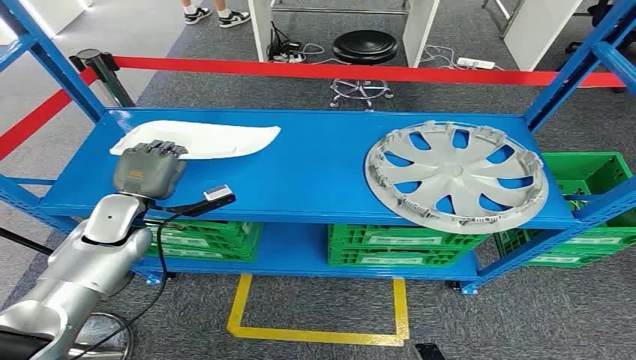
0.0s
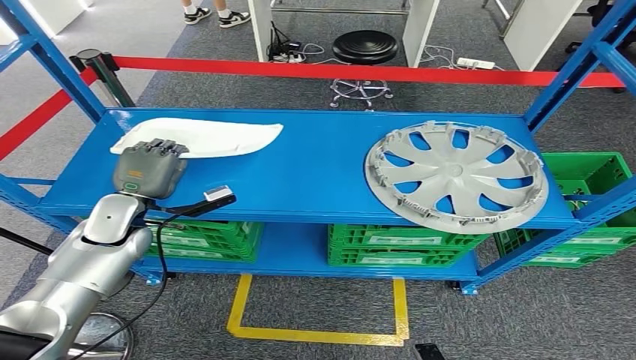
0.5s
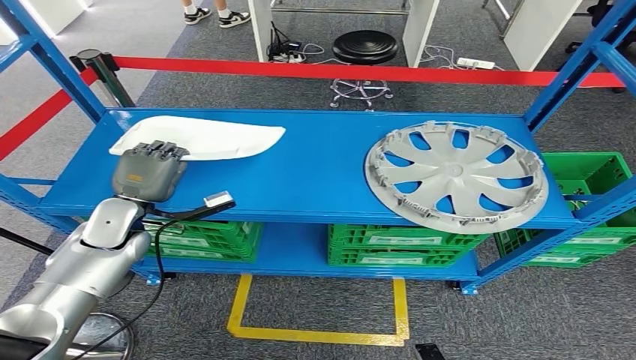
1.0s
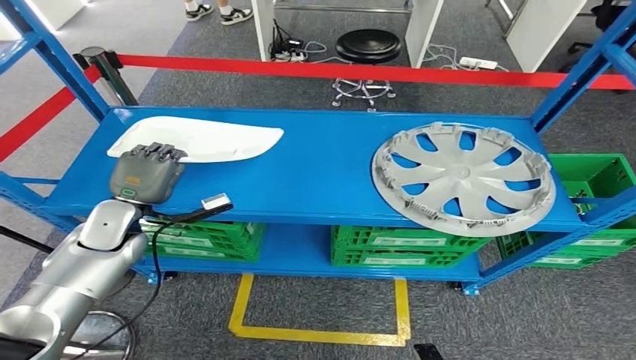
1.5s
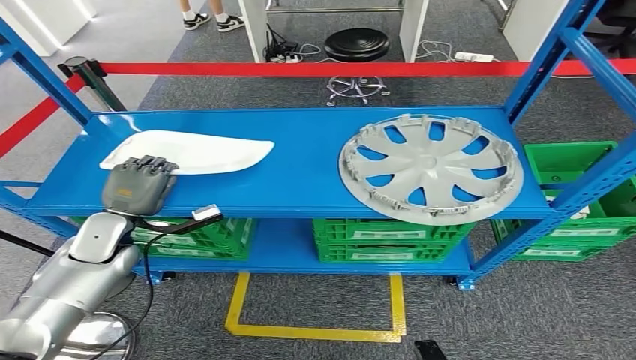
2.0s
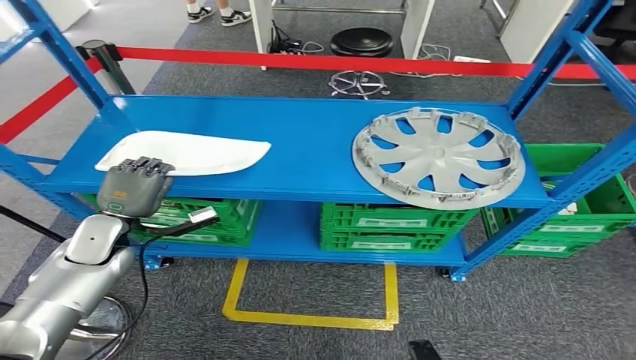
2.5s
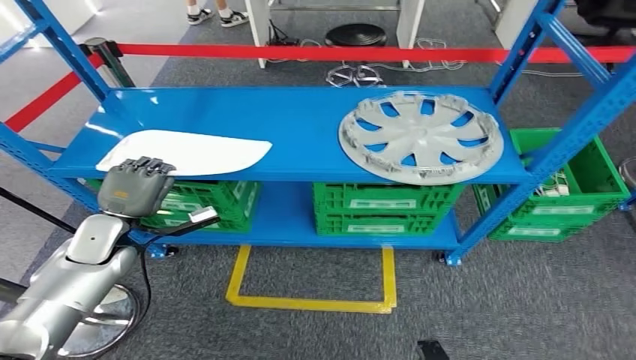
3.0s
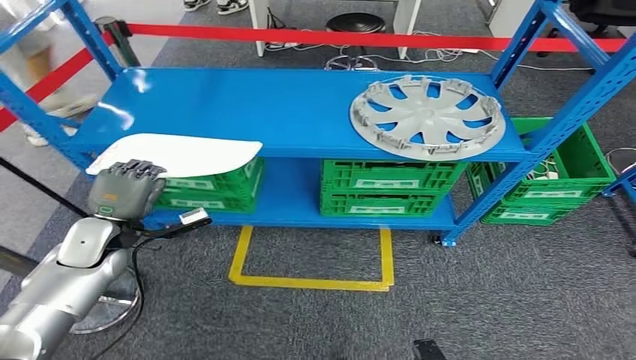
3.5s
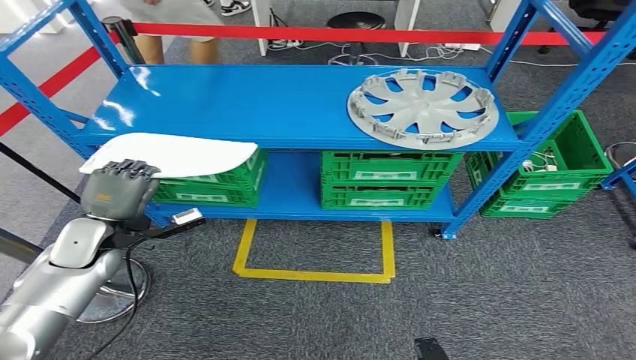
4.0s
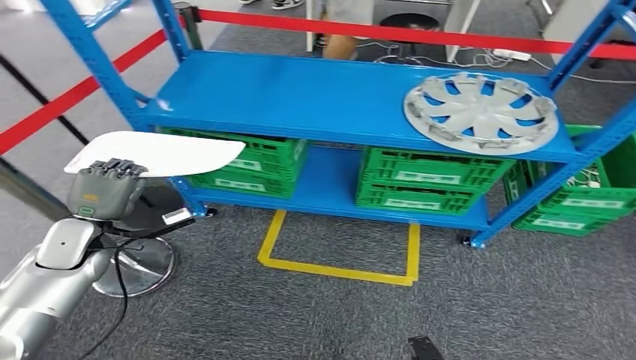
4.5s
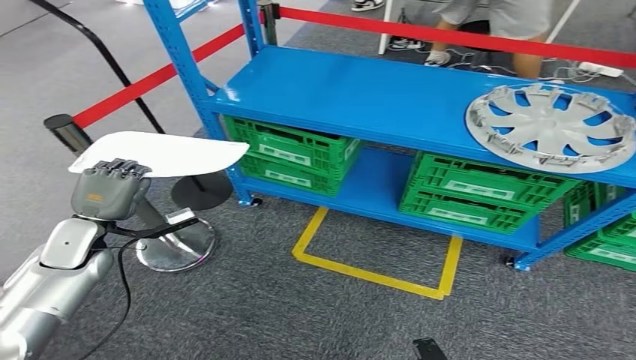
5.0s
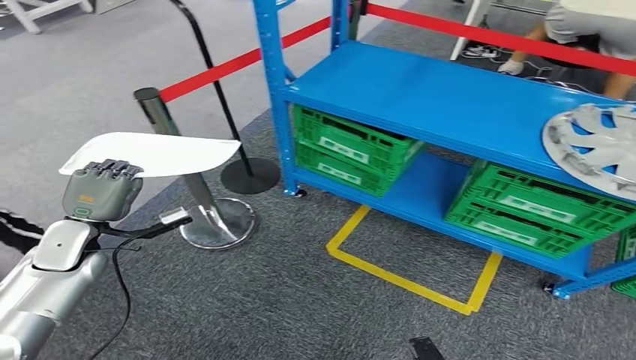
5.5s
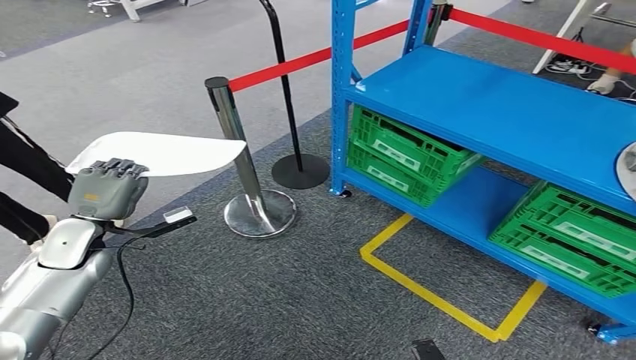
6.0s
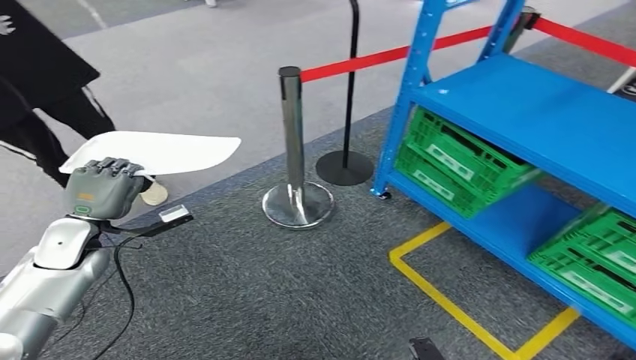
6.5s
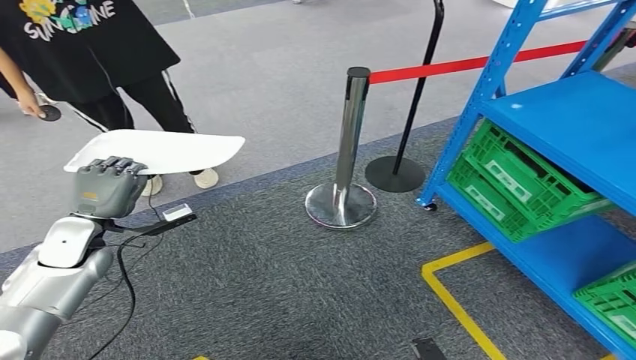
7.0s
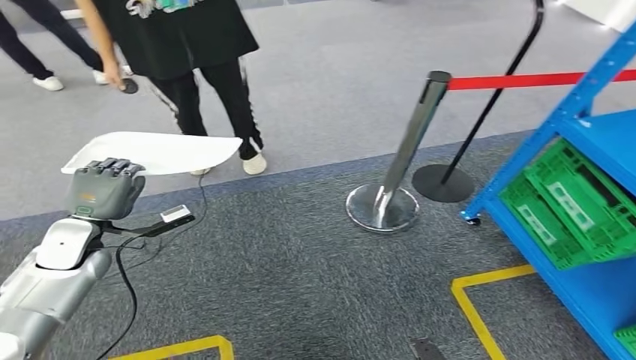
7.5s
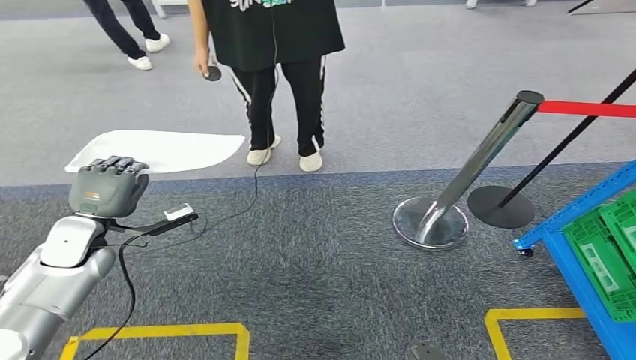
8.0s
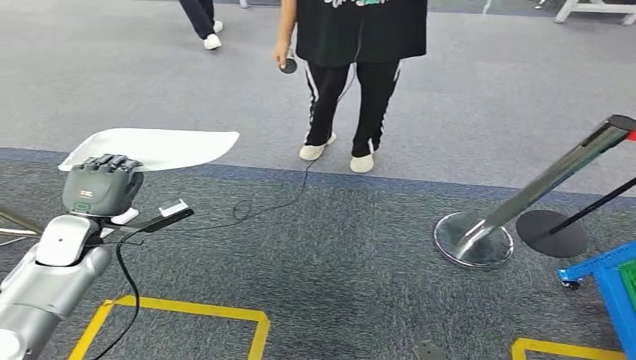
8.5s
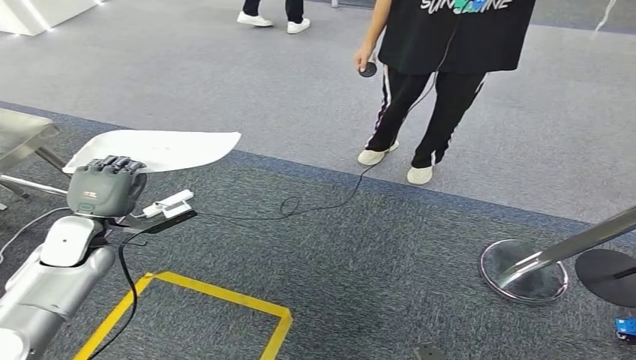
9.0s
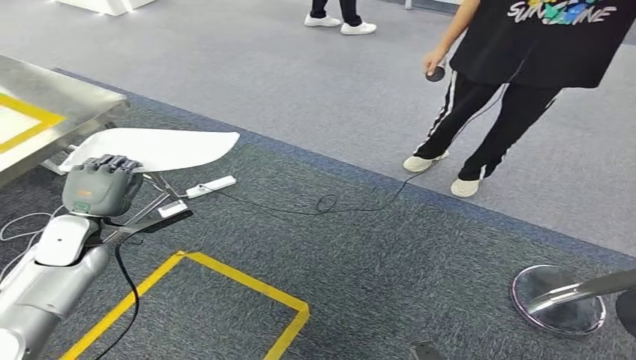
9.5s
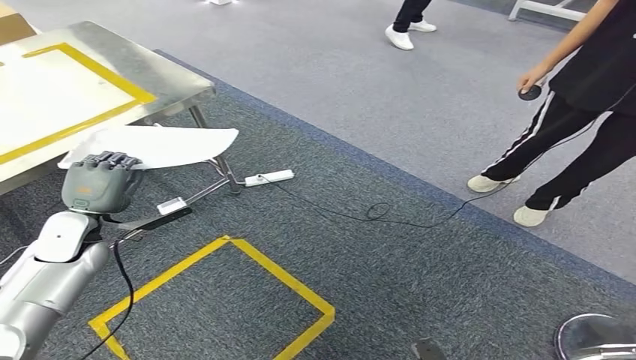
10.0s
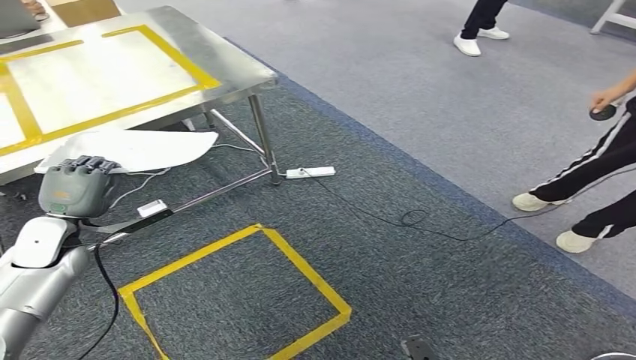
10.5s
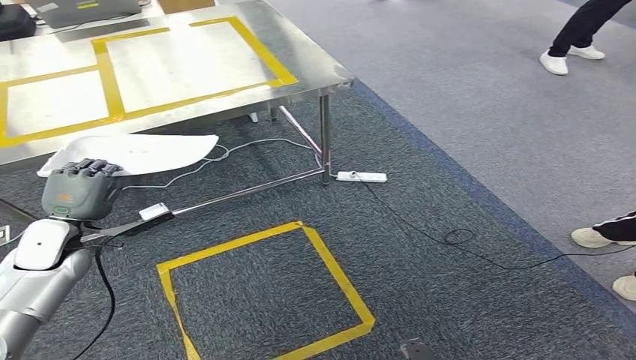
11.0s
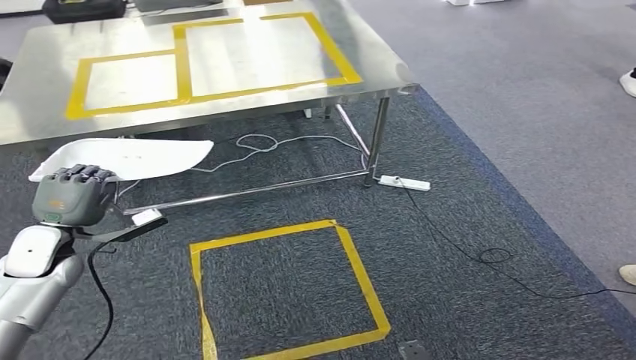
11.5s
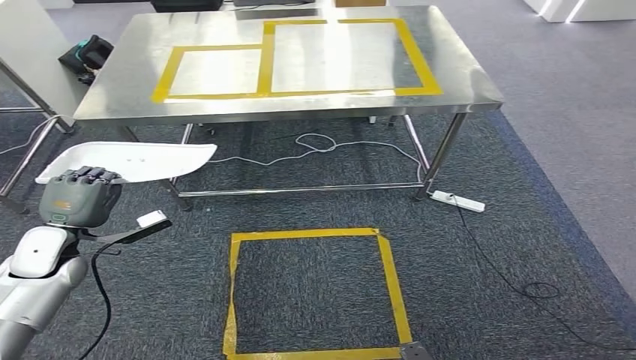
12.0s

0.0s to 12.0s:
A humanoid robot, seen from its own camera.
Step, 0.0s to 3.0s: Pick up the small parts from the shelf.

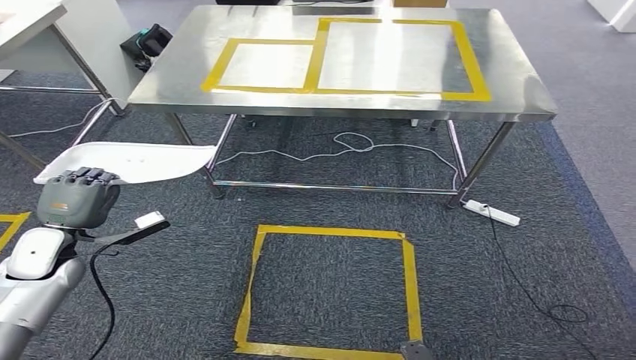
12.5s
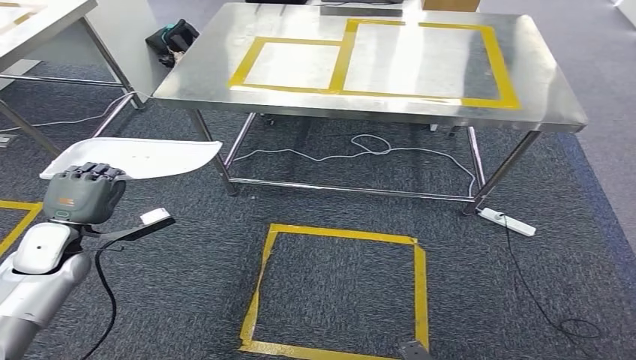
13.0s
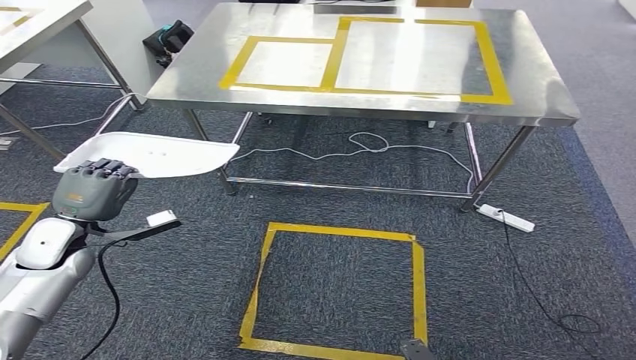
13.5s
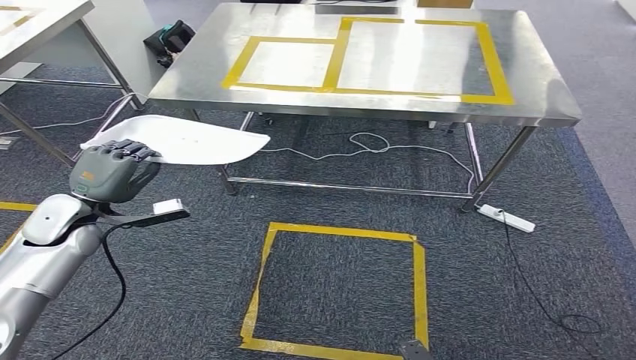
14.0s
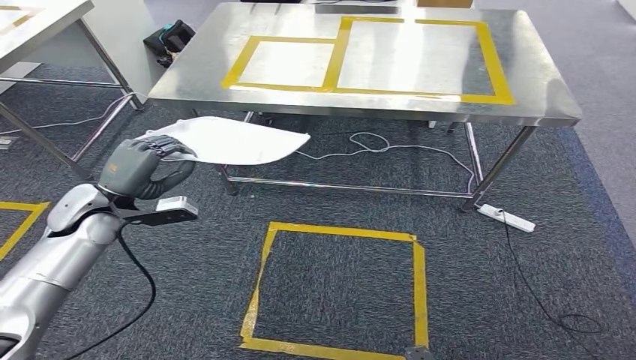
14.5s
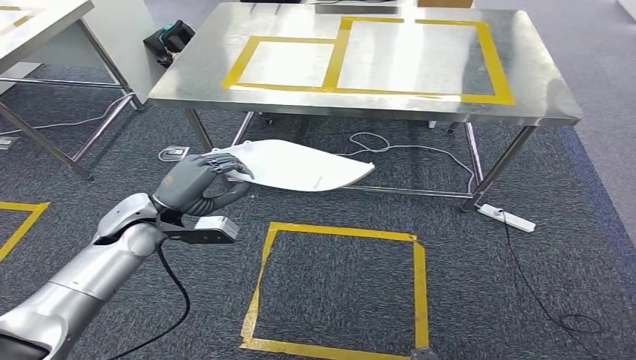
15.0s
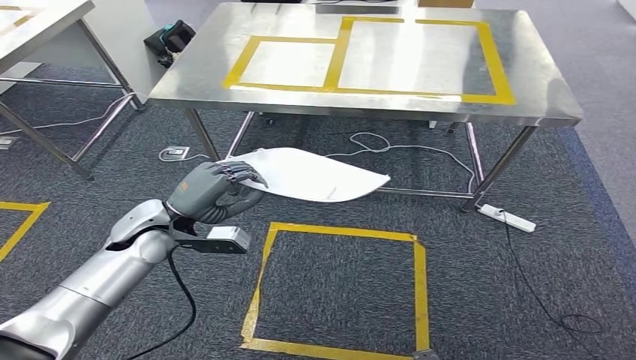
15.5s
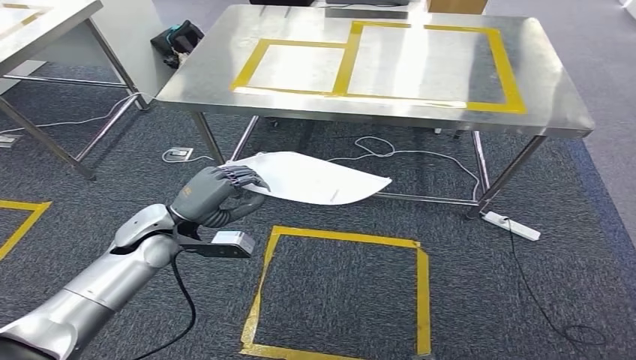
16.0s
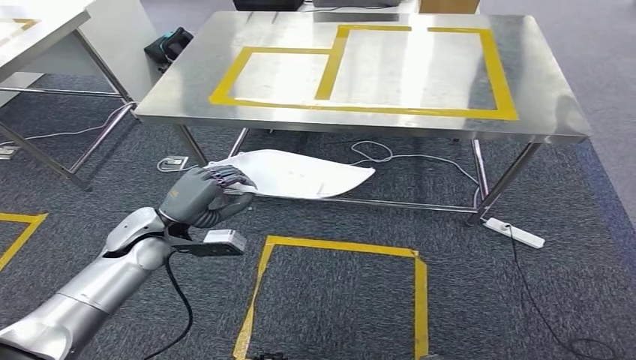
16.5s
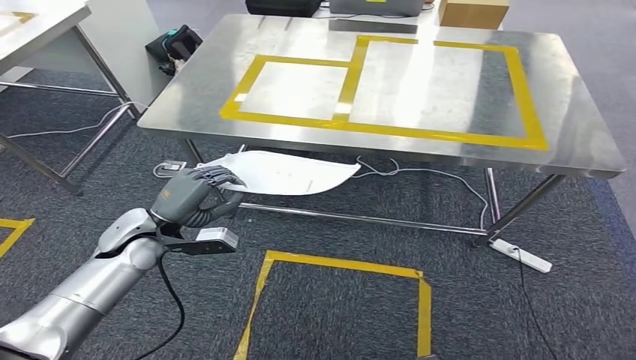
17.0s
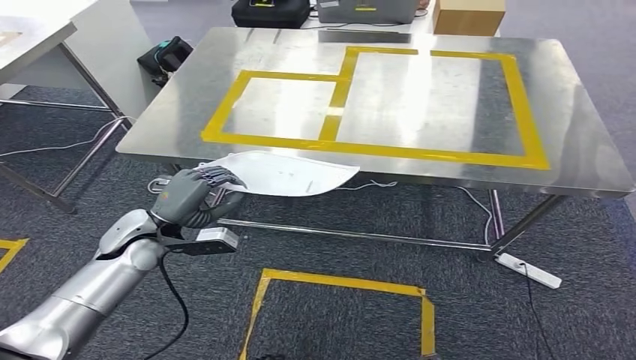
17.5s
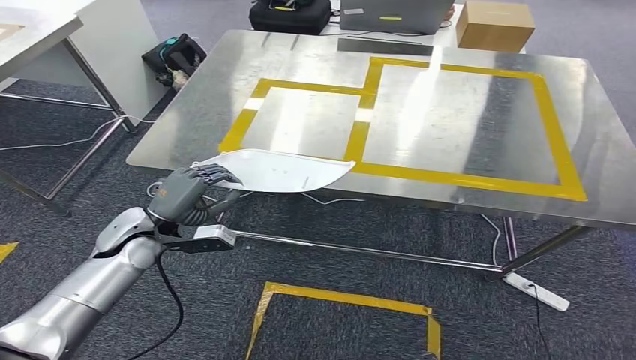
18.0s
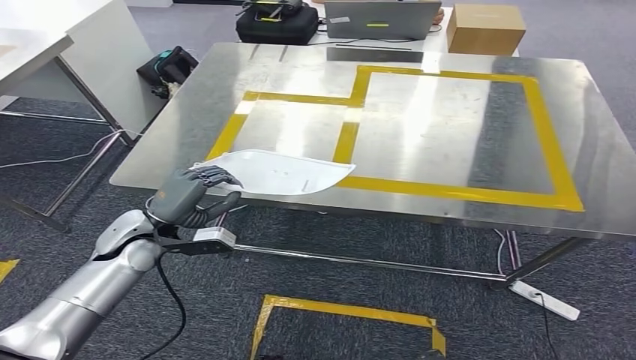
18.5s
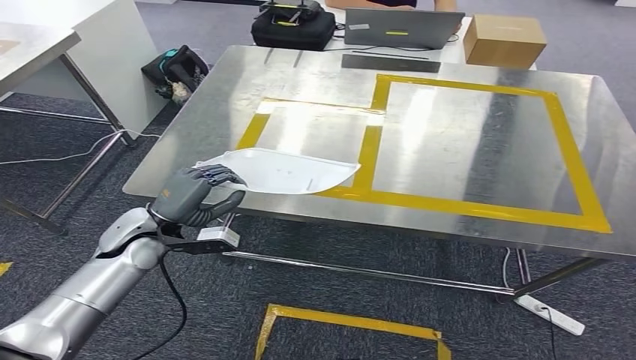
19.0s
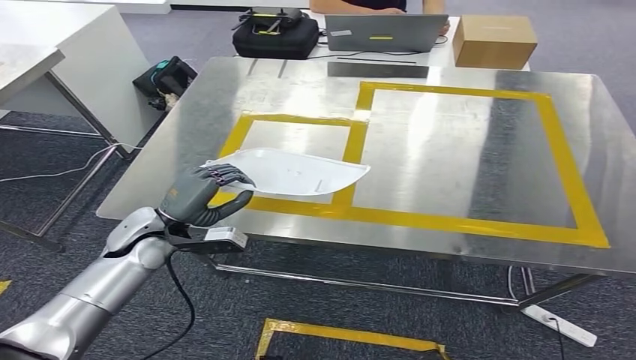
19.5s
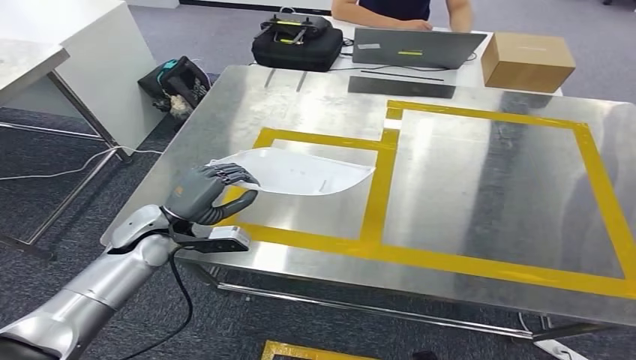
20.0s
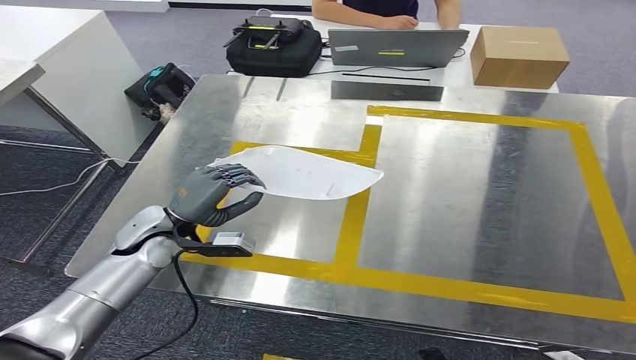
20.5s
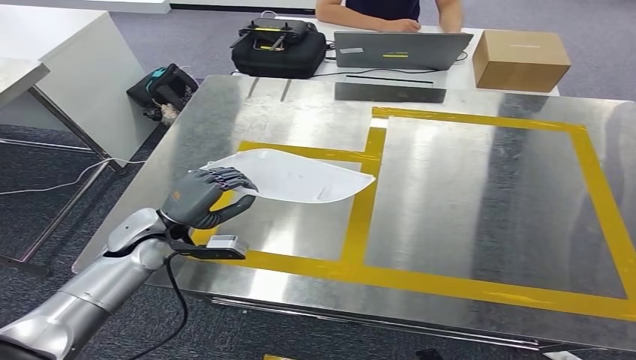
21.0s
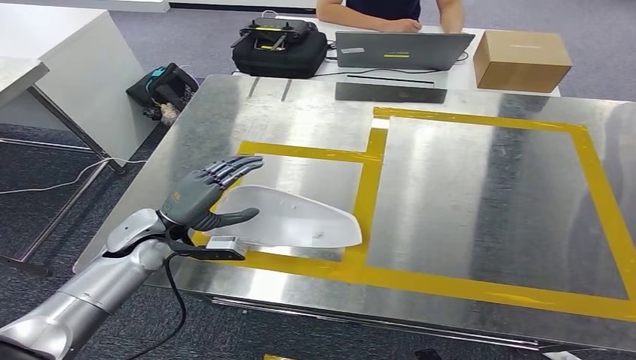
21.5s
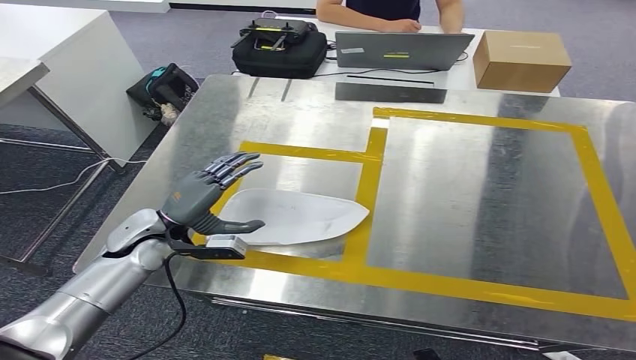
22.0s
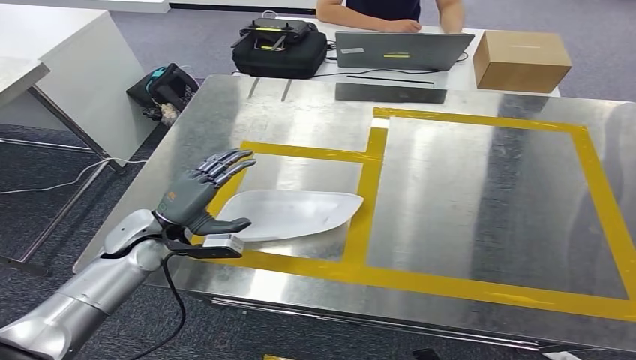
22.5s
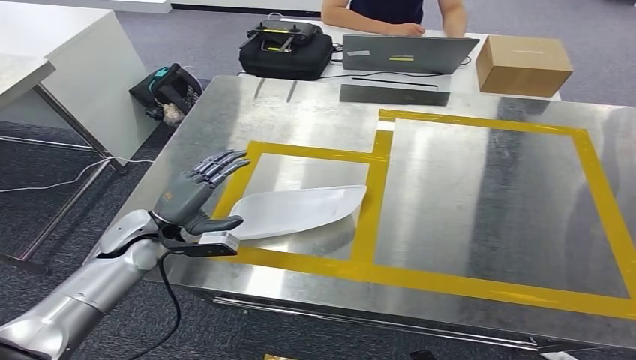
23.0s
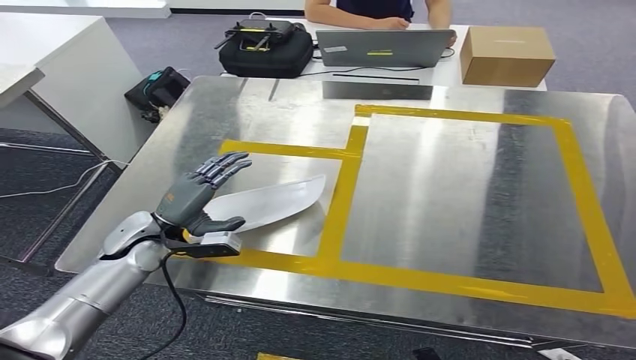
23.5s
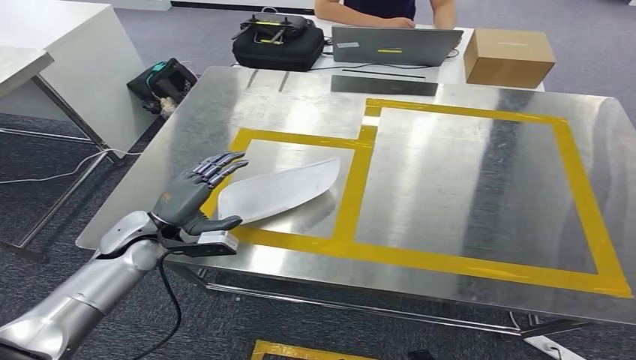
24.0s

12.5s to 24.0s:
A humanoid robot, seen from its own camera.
Step, 12.5s to 14.5s: Move the small parts to the workbench.
